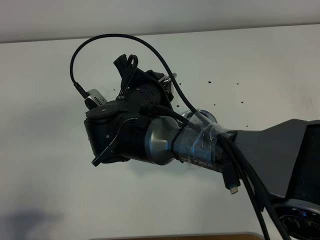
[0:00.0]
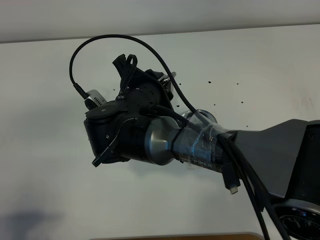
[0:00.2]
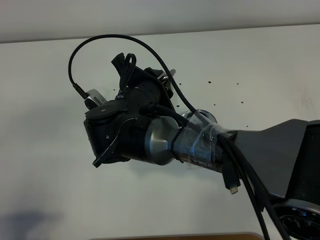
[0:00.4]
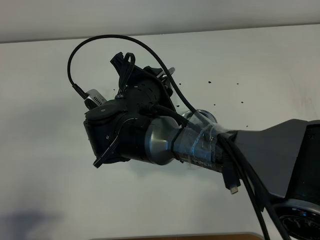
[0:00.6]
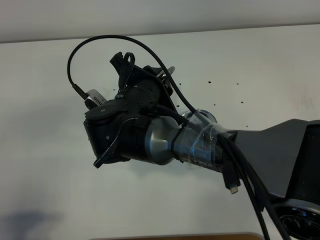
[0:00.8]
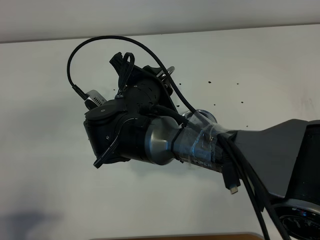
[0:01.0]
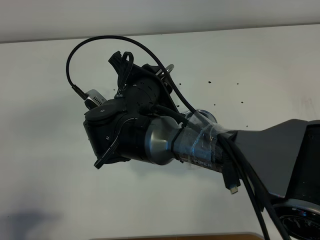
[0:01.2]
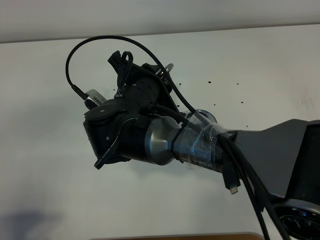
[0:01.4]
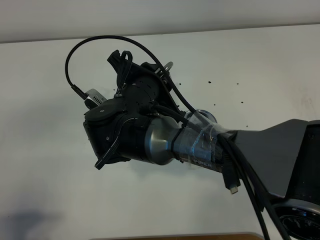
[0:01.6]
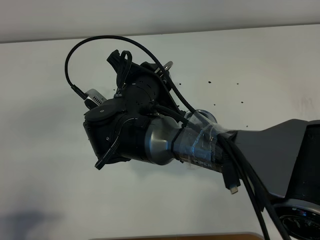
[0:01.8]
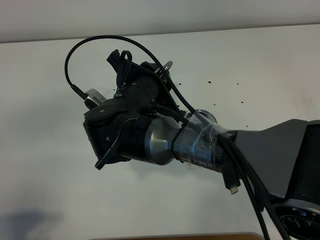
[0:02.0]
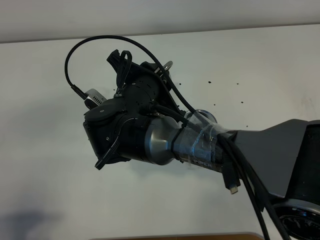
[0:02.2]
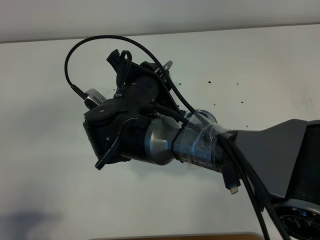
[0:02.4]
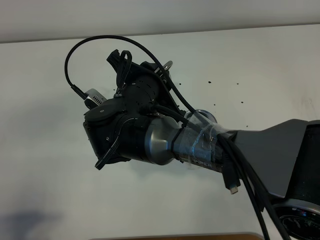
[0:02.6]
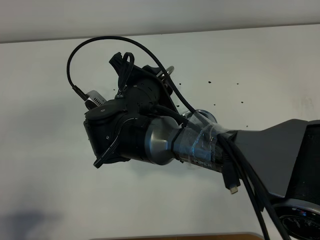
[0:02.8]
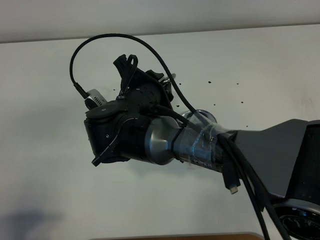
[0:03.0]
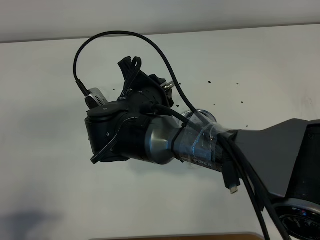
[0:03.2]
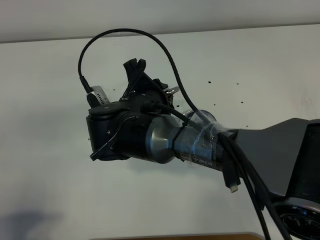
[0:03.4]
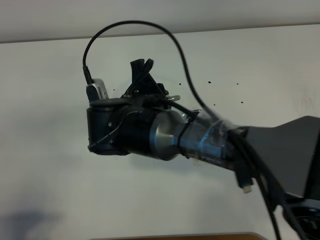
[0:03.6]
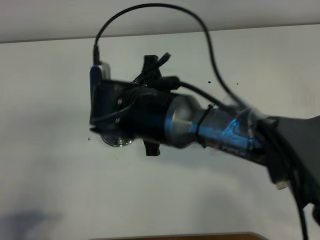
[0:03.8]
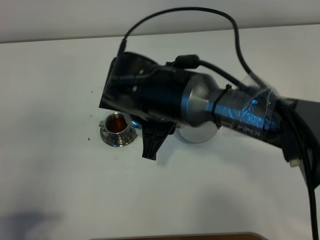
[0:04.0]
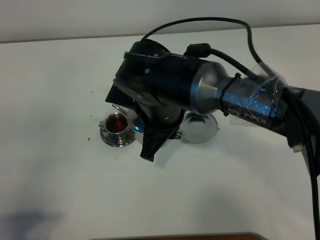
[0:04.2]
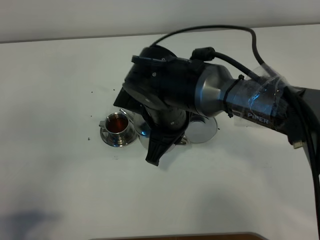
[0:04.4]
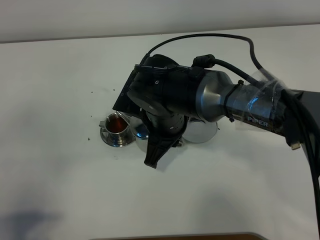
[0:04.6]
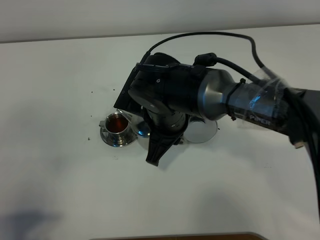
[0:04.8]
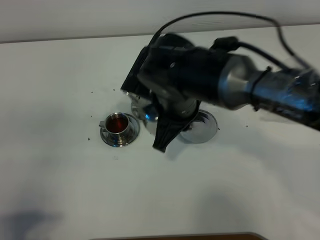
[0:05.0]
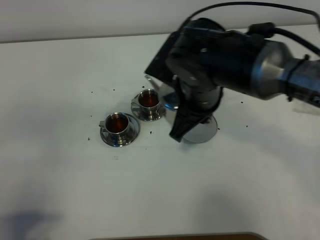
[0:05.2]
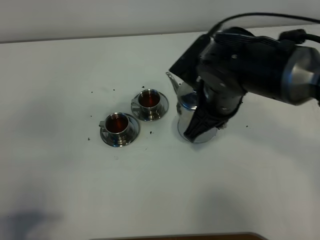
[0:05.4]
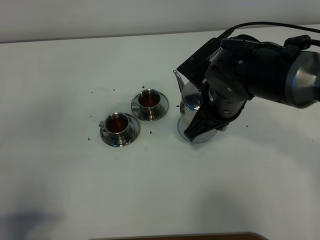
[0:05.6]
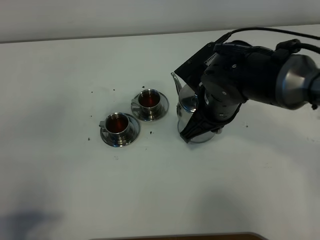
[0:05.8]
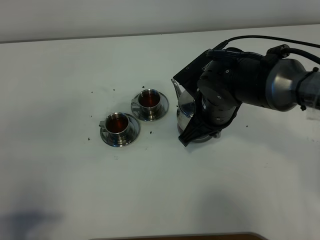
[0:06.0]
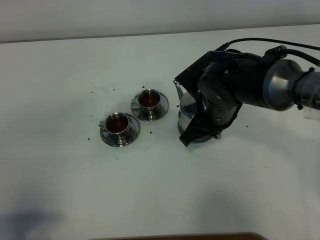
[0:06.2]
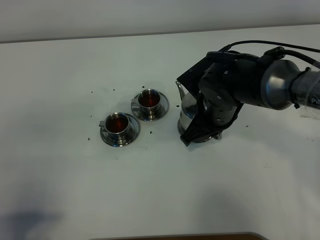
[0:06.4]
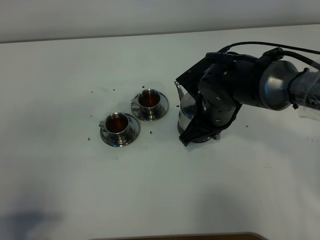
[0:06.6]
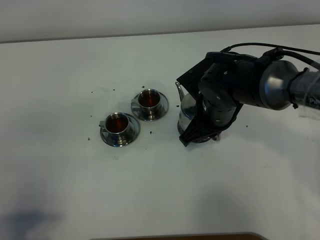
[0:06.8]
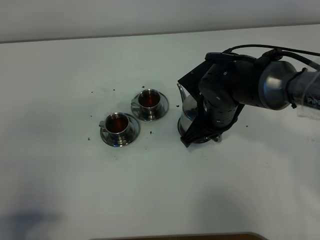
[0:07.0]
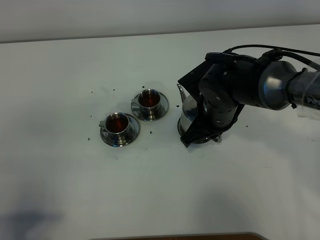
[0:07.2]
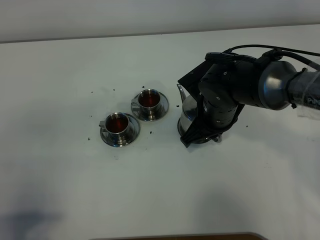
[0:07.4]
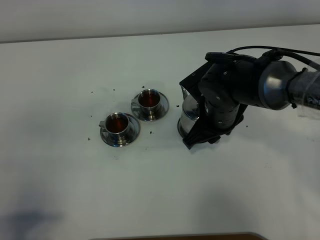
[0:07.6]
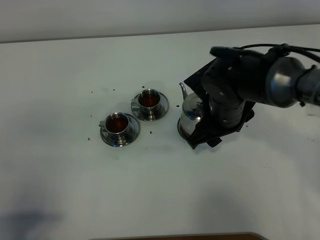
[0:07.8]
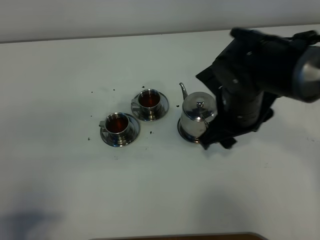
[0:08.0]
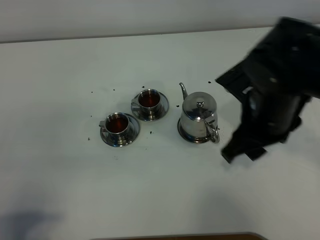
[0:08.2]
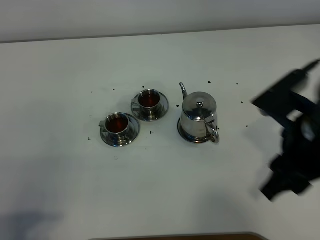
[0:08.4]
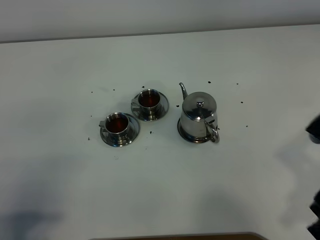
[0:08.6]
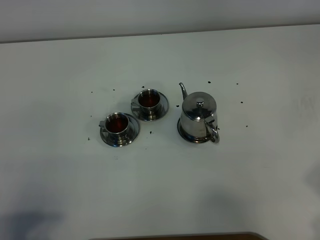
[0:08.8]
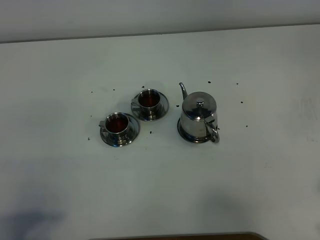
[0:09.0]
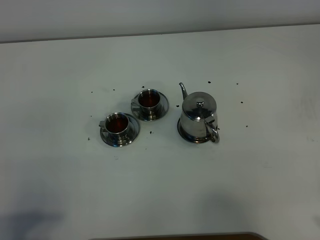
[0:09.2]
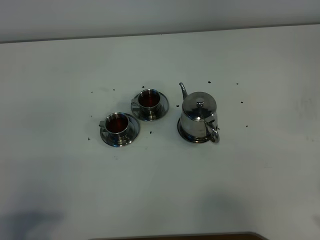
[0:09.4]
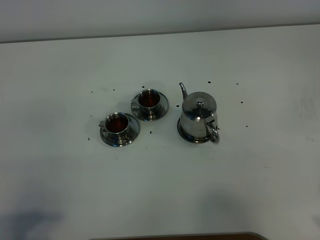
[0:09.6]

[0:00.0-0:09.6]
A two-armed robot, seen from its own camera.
Task of the whole recording: grasp the stainless steel teapot and pour the tea into the two stainless steel teacups one by one, put the stainless steel teapot back in its original place.
Step, 0:00.0 to 0:03.8: Pour tea into the teacup with the right gripper.
0:00.0 to 0:03.2: The grippers move only a little.
0:04.8 to 0:06.4: The right gripper shifts about 10 cm to the right.
0:06.4 to 0:08.0: The right gripper is displaced upward by roughly 5 cm, and opens.
0:08.0 to 0:09.6: The right gripper goes some 30 cm to the right and backward.

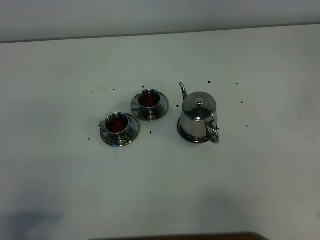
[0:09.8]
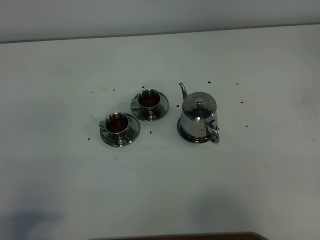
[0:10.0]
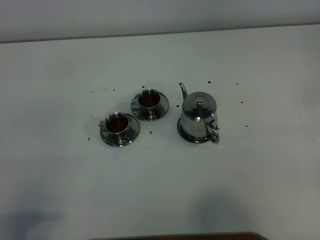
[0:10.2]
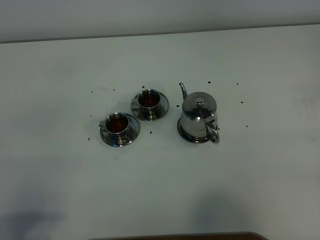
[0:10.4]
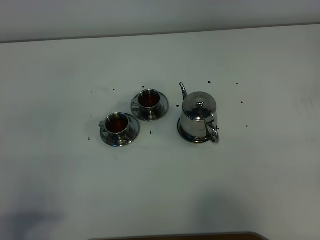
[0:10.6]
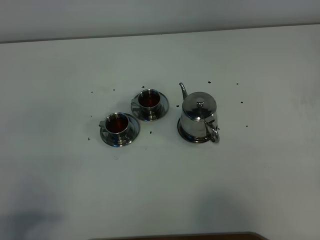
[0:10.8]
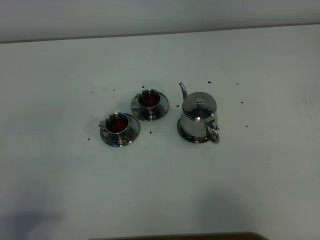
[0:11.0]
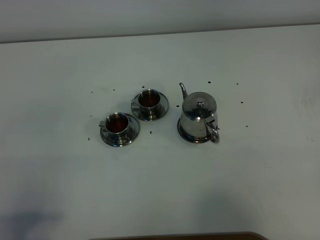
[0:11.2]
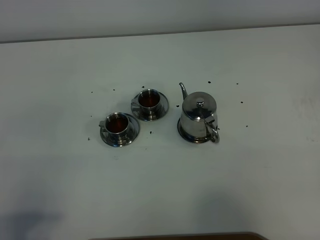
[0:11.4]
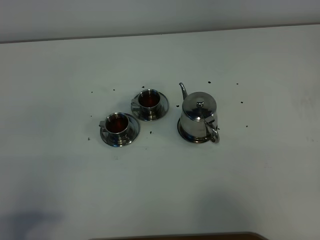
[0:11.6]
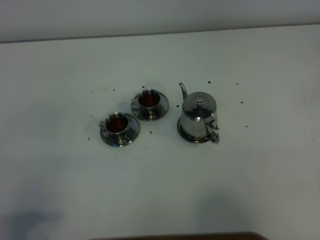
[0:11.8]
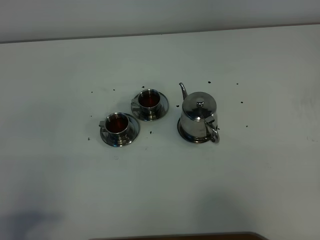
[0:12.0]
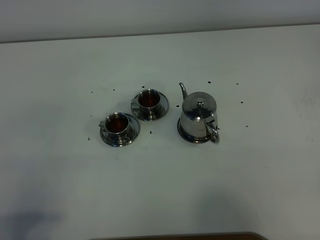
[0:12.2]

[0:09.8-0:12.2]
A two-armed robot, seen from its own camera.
Task of the whole recording: grasp the stainless steel teapot and pour the tea into the two stainless steel teacups one by one, put the stainless steel teapot back in its original place.
0:11.0 to 0:12.2: Both grippers stay put.
